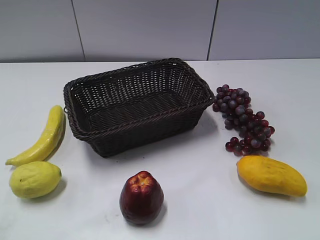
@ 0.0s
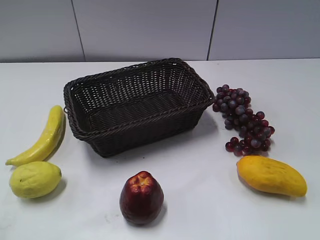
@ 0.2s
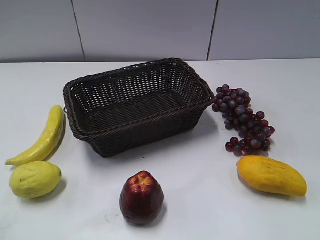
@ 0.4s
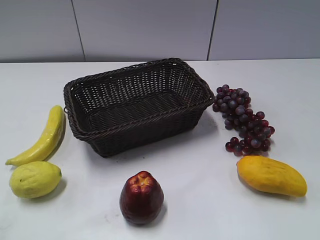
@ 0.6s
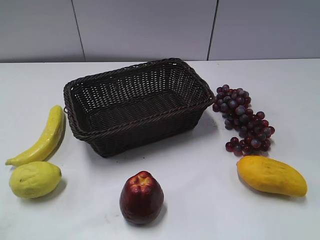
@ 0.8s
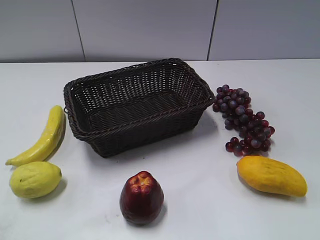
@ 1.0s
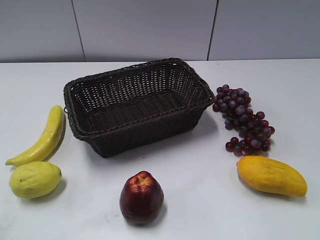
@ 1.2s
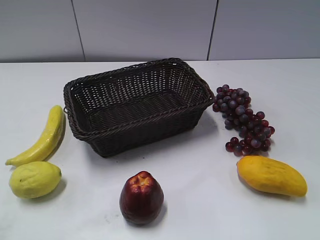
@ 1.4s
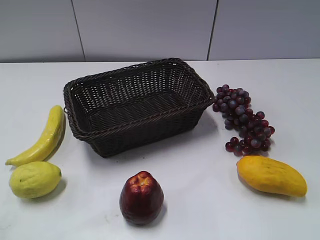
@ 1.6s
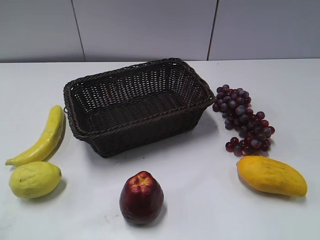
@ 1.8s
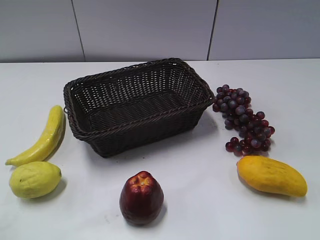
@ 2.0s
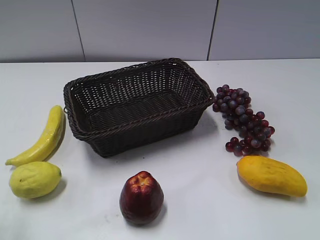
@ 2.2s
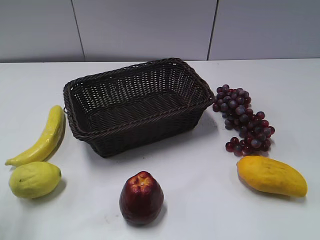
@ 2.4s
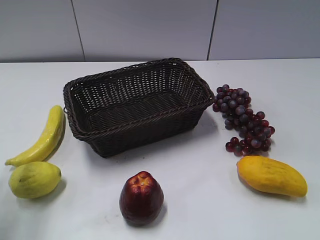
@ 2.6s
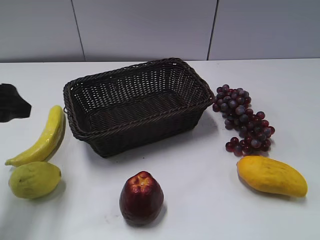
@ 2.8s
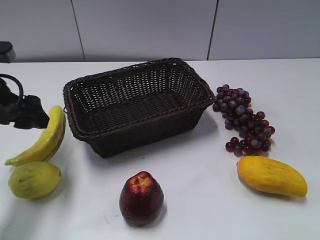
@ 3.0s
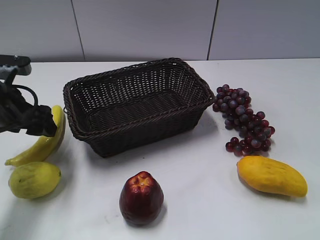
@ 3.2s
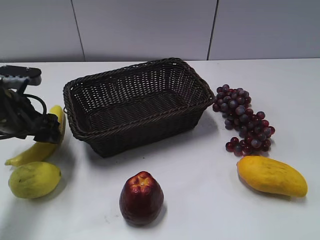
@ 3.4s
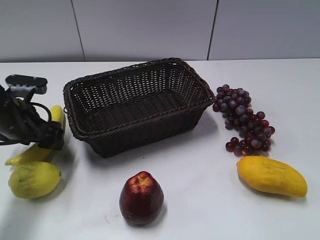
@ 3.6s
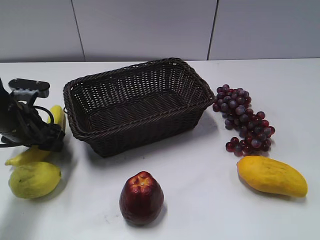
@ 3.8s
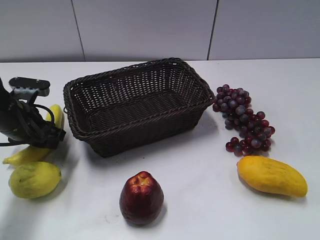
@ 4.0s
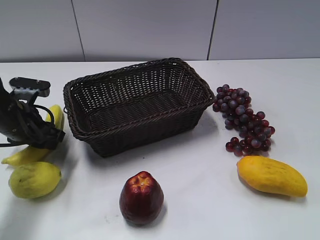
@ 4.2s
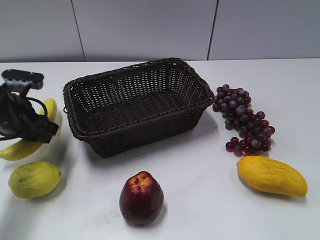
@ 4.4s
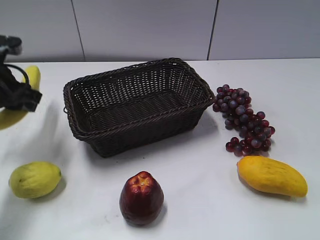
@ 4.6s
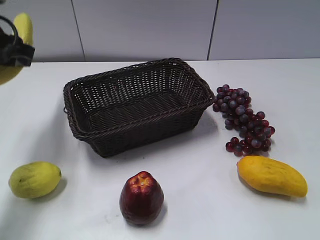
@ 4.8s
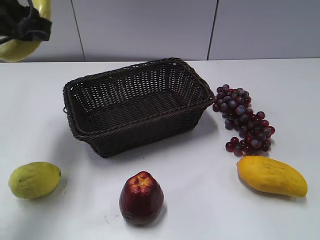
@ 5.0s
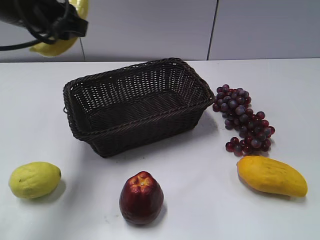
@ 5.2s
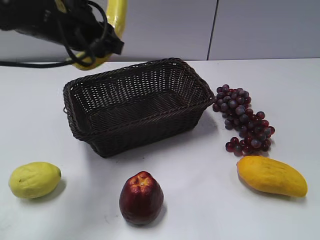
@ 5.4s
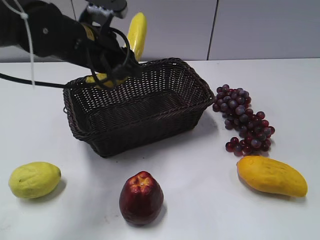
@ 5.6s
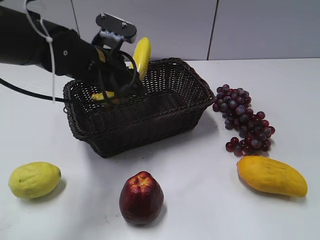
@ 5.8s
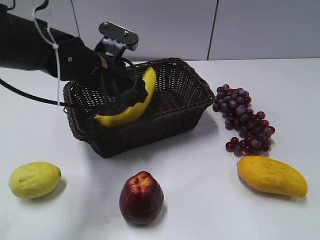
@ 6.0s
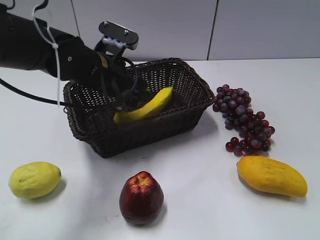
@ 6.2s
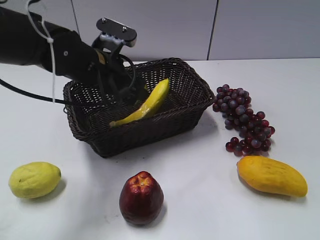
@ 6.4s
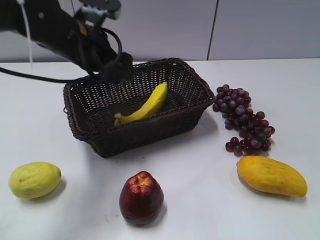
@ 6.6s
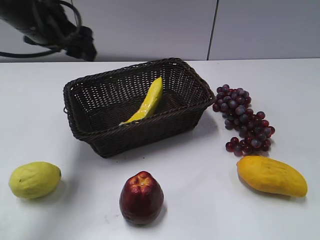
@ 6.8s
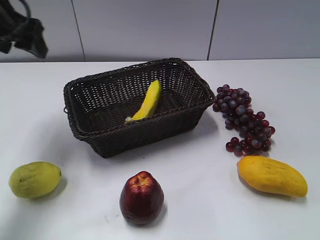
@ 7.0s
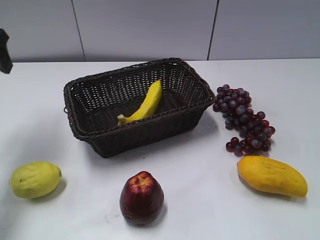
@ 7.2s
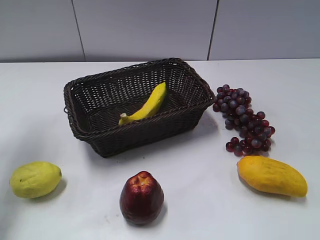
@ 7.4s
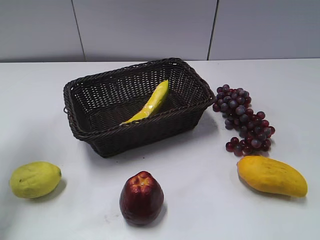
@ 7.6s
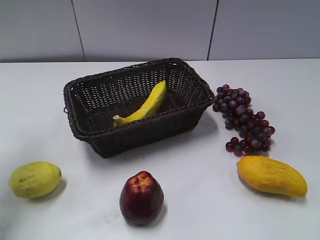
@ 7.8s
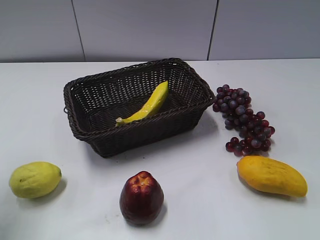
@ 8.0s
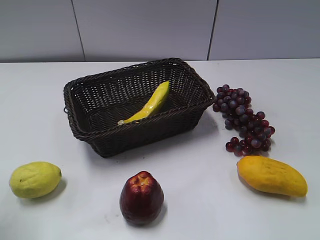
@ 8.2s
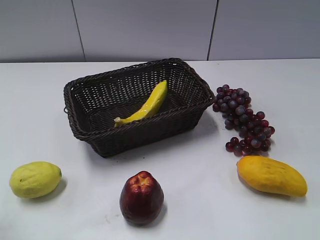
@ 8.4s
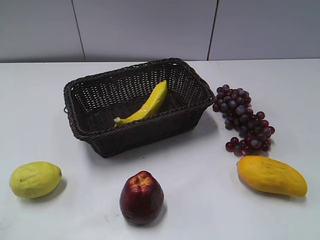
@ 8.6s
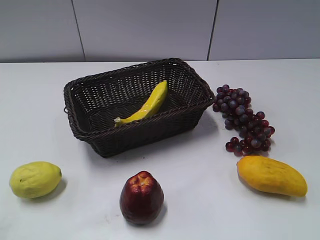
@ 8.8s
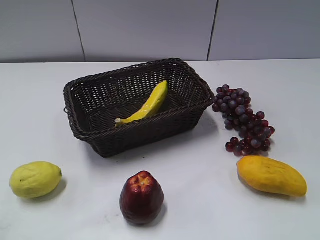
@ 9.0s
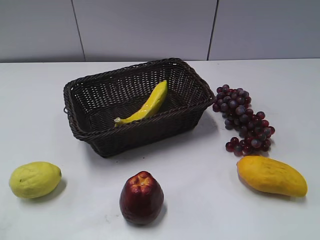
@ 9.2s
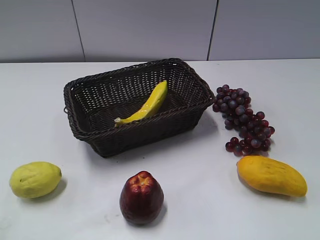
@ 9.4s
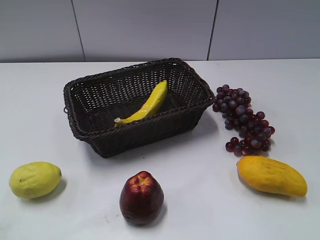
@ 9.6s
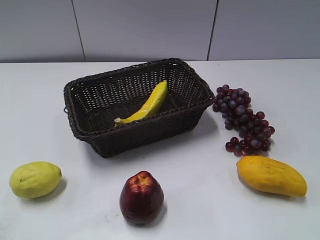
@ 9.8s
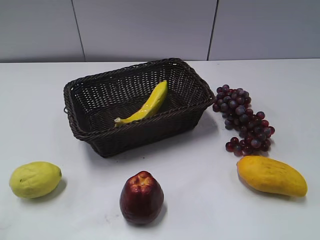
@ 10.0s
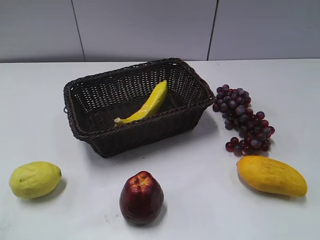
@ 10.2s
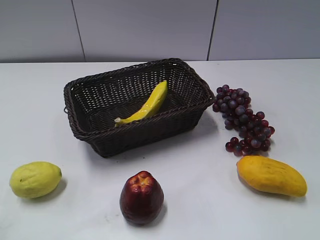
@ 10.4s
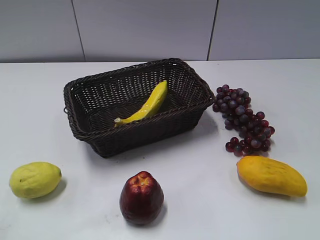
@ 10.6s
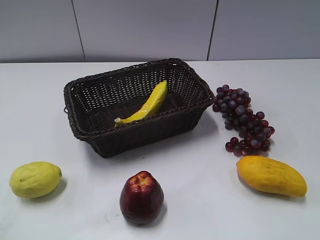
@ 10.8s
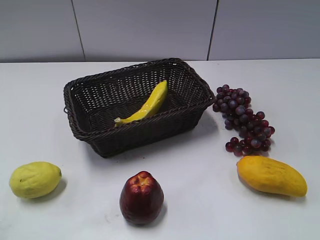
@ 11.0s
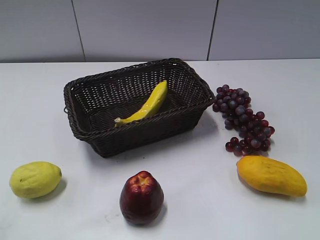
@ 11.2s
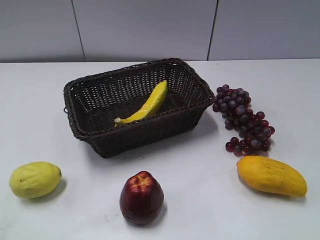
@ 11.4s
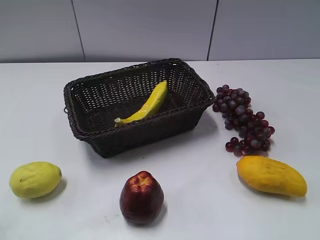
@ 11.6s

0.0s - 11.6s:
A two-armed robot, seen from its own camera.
Step, 2.6s - 4.4s: Grasp the banana with left gripper.
Step, 4.6s - 6.4s: Place the banana in the basket with left gripper.
1.4s - 2.8s: The left gripper travels forward by about 25 cm, and opens its fingers.
2.8s - 4.4s: The left gripper shifts about 10 cm downward and forward, and closes up.
4.4s - 5.8s: The left gripper travels to the right by some 15 cm.
5.8s - 7.2s: The left gripper is displaced to the left and upward by roughly 20 cm, and opens up.
7.2s - 8.8s: The left gripper heads backward, covering roughly 35 cm.
